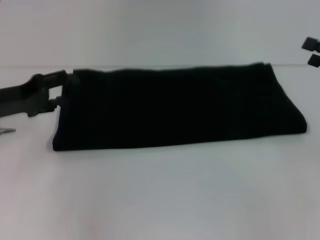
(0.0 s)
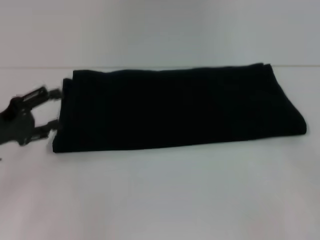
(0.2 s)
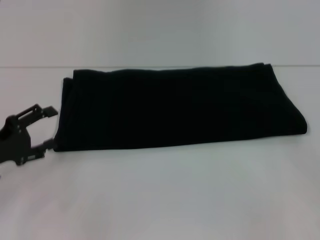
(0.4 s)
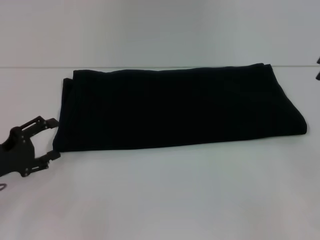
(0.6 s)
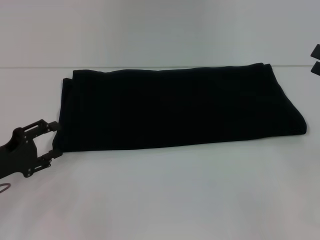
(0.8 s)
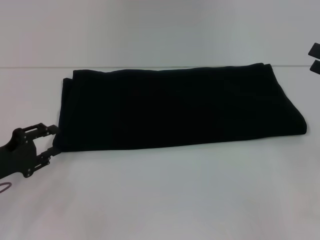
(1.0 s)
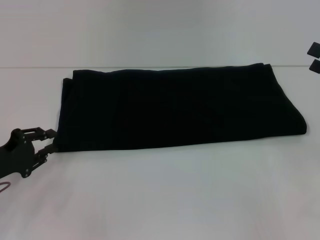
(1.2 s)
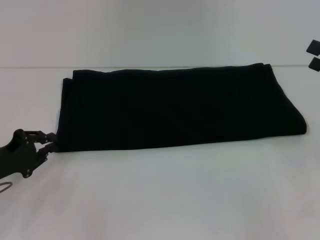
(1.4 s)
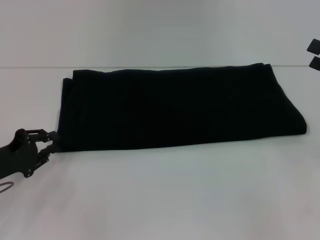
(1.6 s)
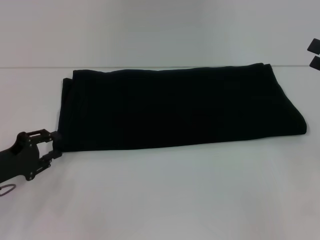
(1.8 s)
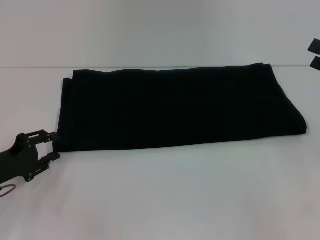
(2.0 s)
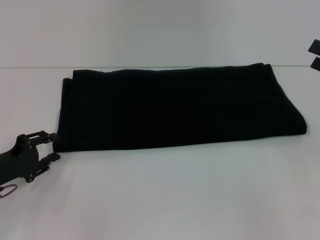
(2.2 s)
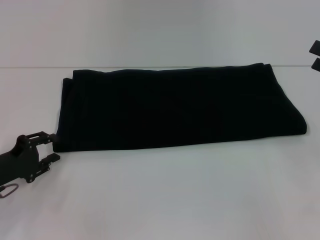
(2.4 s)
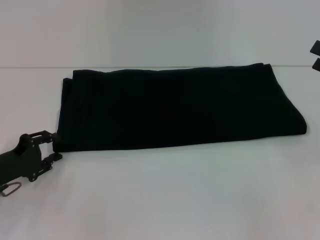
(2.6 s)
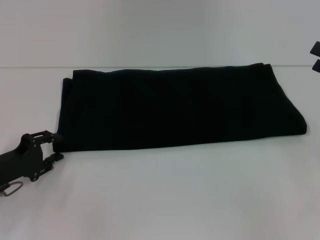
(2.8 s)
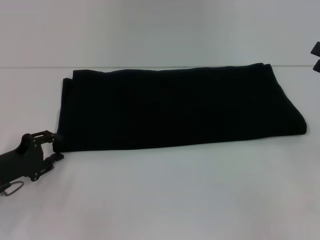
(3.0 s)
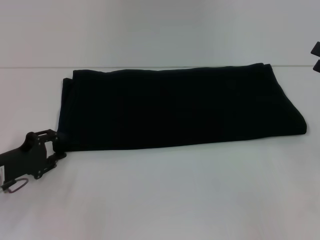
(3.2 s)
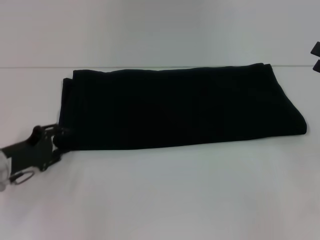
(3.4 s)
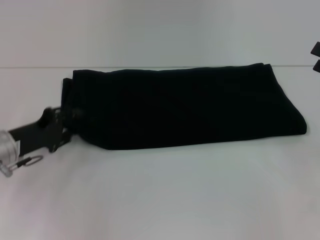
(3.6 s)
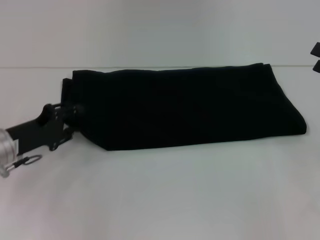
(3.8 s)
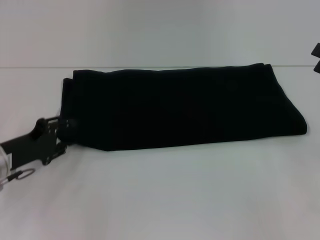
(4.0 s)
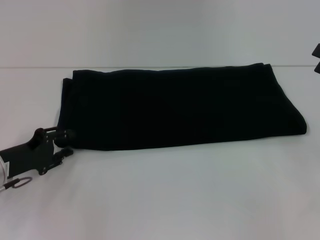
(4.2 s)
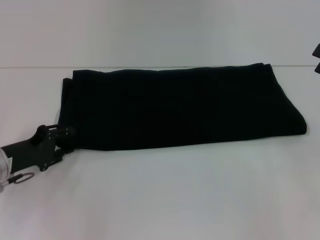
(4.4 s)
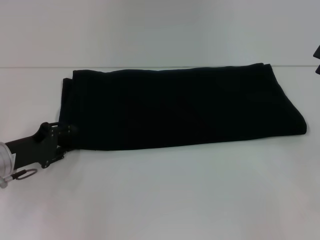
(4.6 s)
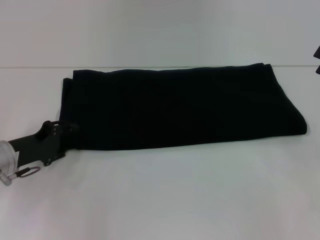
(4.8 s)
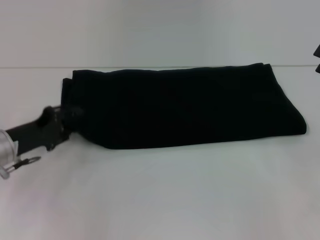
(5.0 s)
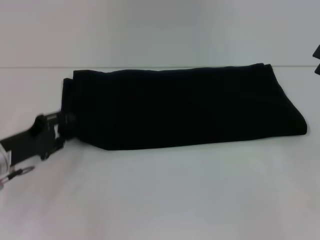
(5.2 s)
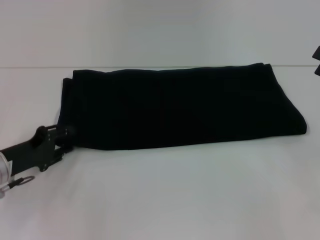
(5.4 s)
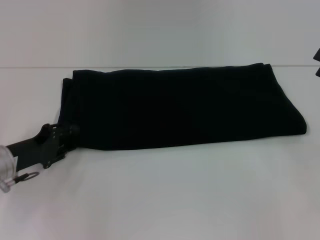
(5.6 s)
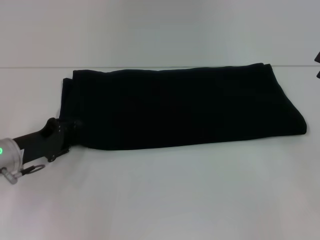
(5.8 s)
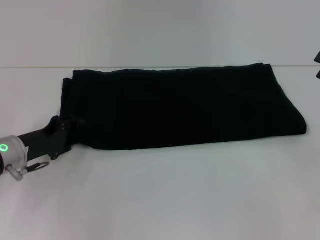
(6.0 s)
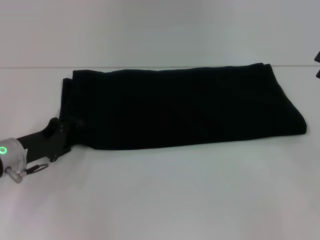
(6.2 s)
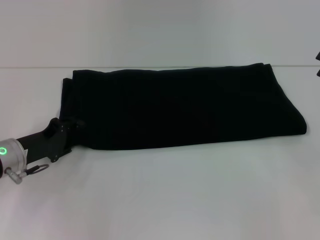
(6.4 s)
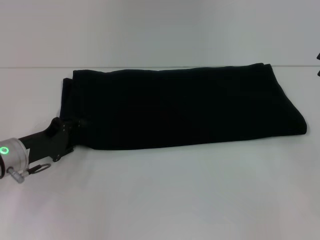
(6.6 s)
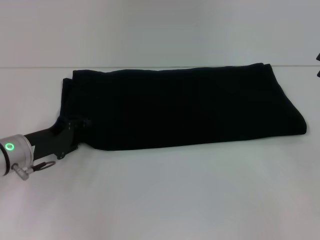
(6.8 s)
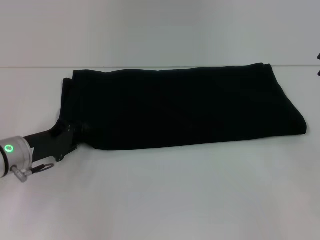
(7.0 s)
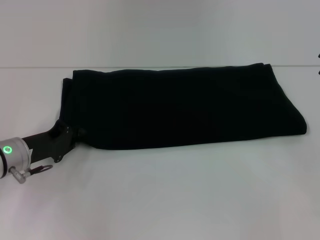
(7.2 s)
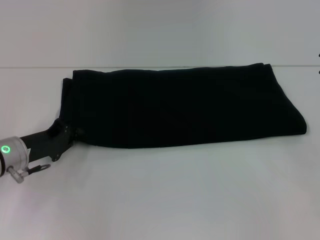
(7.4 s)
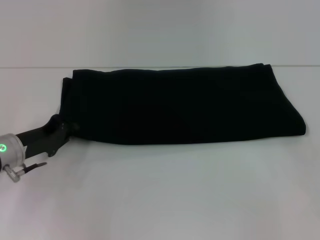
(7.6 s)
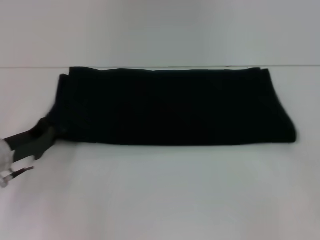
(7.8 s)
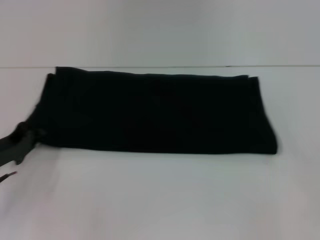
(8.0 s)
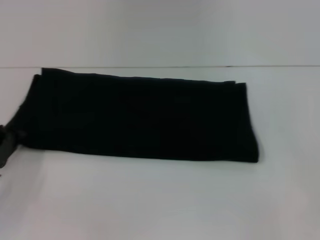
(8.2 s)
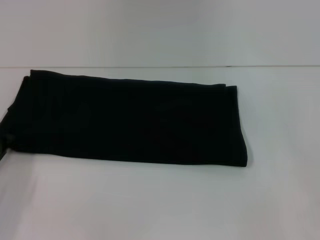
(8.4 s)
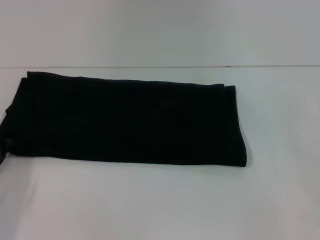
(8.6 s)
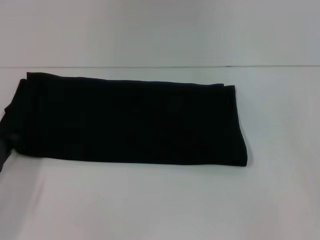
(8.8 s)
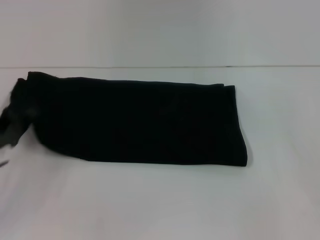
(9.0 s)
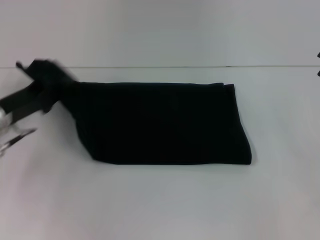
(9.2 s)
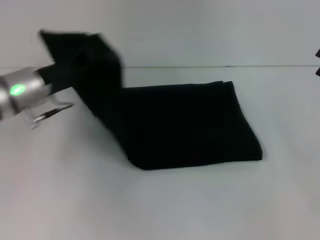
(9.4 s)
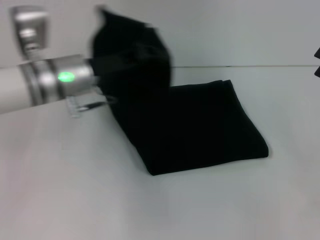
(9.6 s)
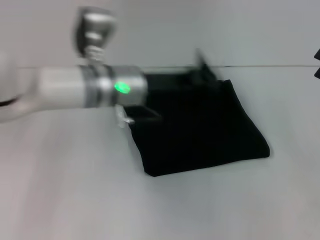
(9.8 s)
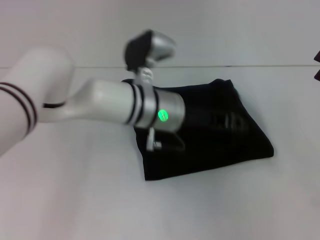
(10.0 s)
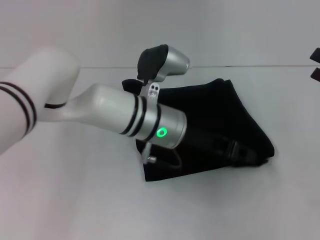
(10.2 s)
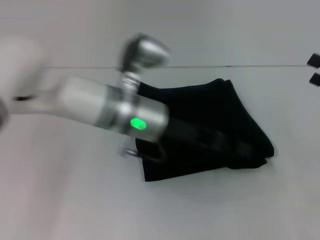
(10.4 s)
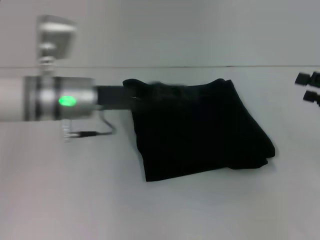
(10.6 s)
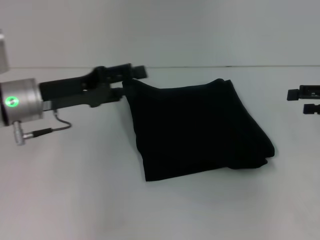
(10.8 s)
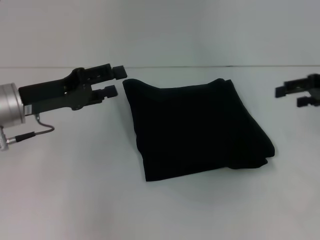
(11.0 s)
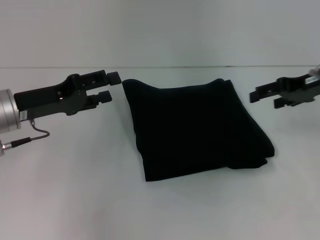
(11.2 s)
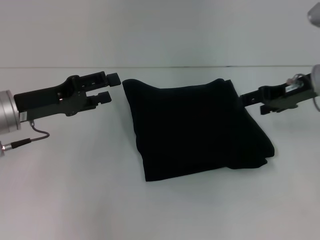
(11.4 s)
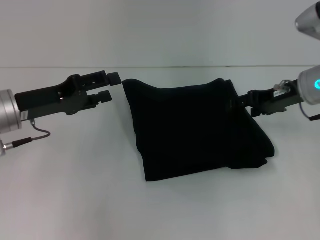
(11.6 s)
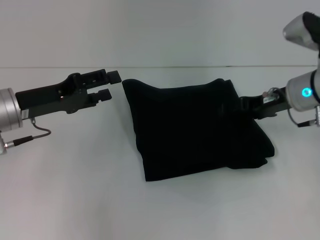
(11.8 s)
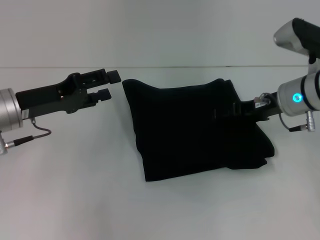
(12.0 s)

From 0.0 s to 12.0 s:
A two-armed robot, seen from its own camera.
Step, from 0.0 s to 10.2 s: Fold the clothes with your left hand.
From 0.0 s to 1.6 s: The left gripper travels downward and backward by about 10 cm, and closes.
From 1.6 s to 3.0 s: The grippers stay close to where they were, moving slightly.
From 3.0 s to 6.0 s: The grippers move only a little.
From 6.0 s to 7.6 s: The left gripper closes up.
From 7.6 s to 9.0 s: The left gripper moves to the left, roughly 5 cm.
From 9.0 s to 10.4 s: The left gripper goes some 25 cm to the right.
From 10.4 s to 12.0 s: The right gripper is displaced to the left and forward by some 20 cm. Meanwhile the left gripper moves to the left, some 20 cm, and opens up.

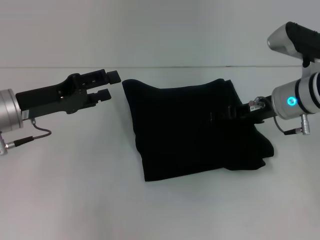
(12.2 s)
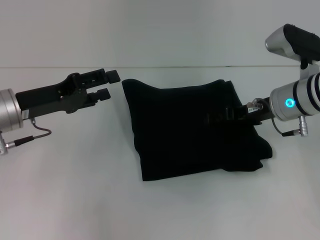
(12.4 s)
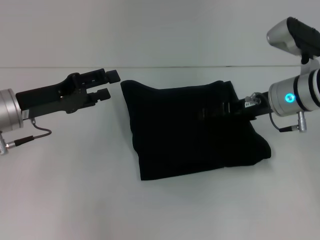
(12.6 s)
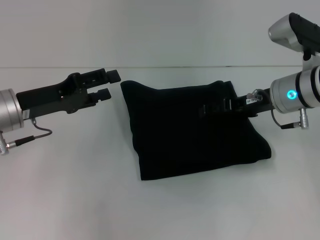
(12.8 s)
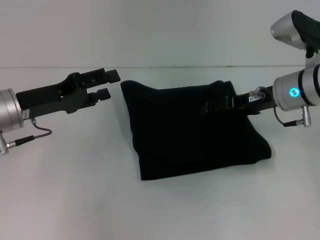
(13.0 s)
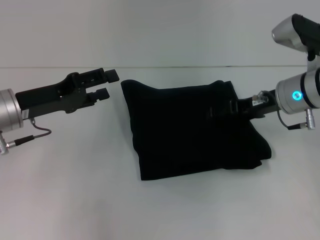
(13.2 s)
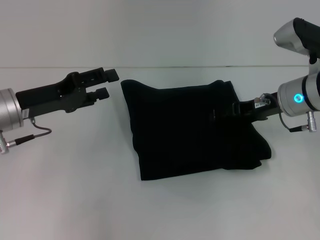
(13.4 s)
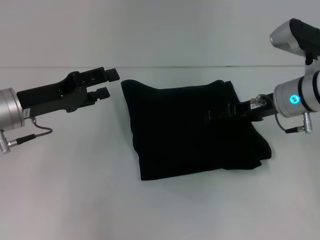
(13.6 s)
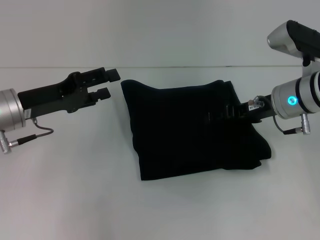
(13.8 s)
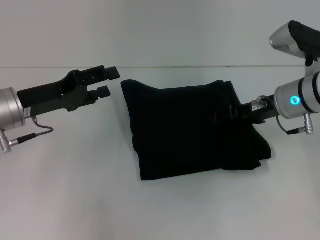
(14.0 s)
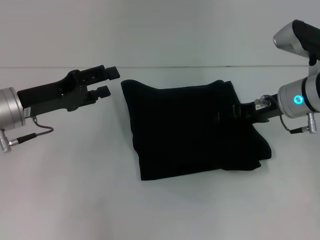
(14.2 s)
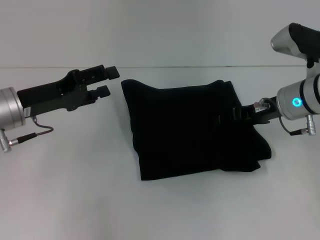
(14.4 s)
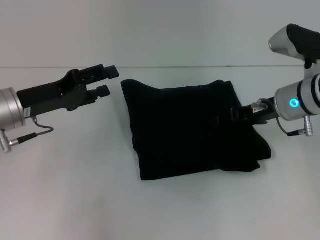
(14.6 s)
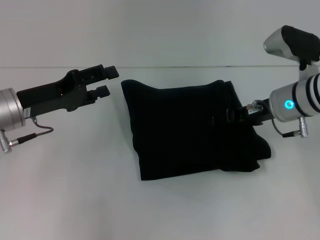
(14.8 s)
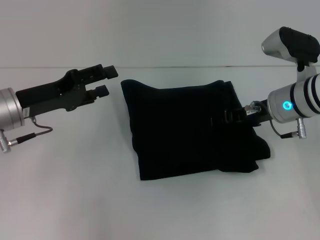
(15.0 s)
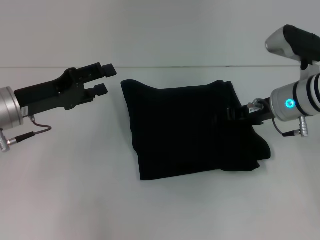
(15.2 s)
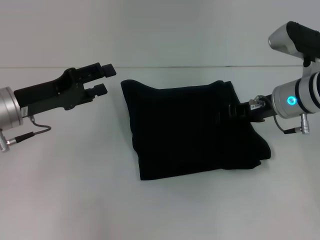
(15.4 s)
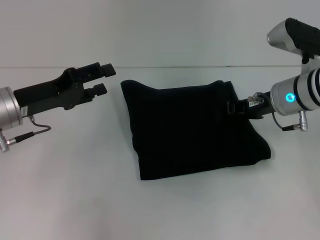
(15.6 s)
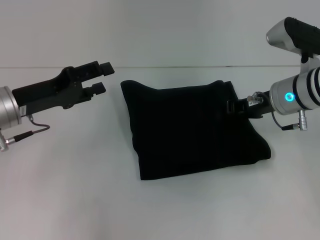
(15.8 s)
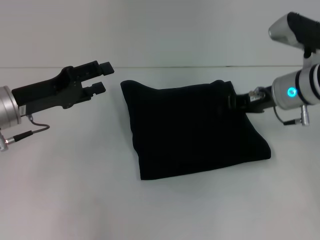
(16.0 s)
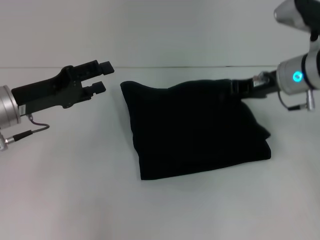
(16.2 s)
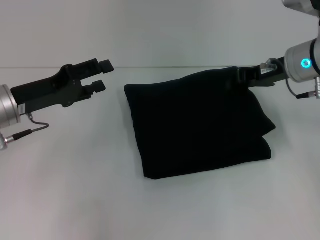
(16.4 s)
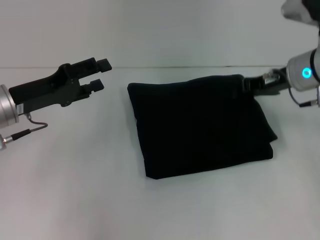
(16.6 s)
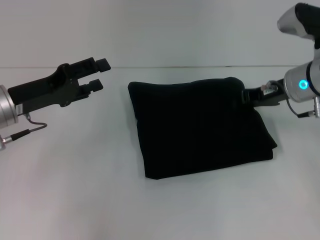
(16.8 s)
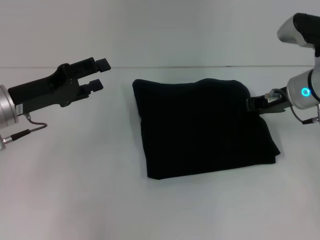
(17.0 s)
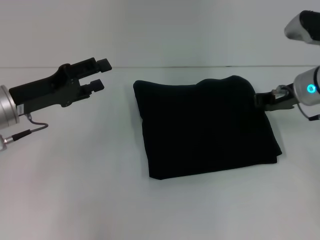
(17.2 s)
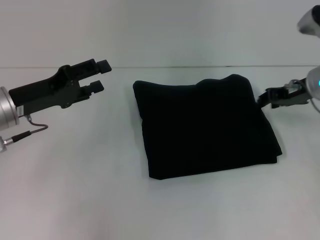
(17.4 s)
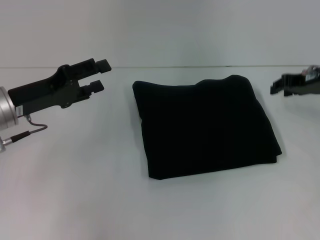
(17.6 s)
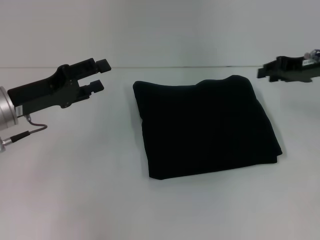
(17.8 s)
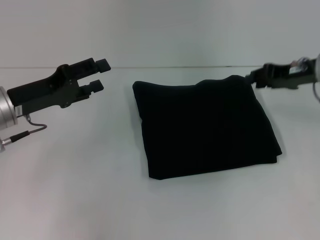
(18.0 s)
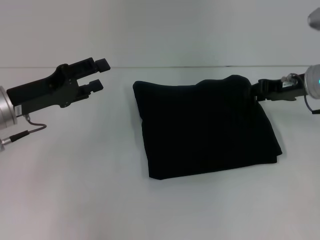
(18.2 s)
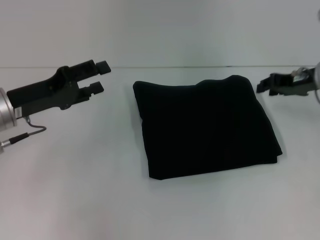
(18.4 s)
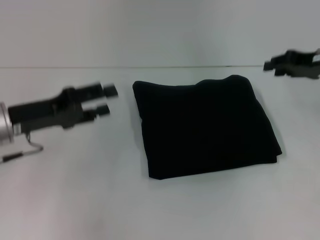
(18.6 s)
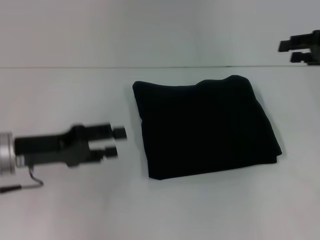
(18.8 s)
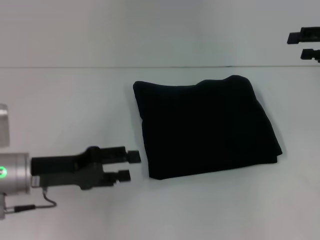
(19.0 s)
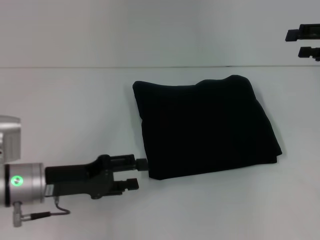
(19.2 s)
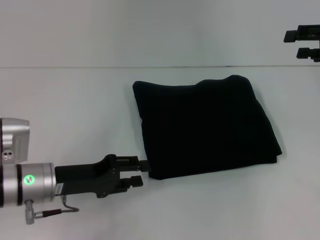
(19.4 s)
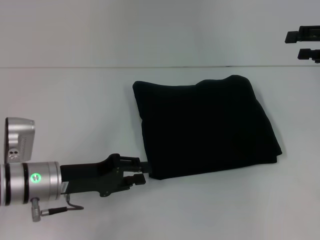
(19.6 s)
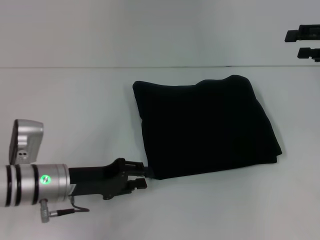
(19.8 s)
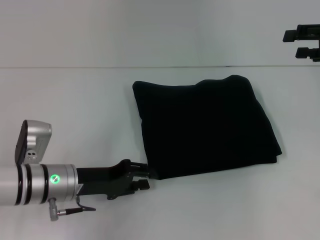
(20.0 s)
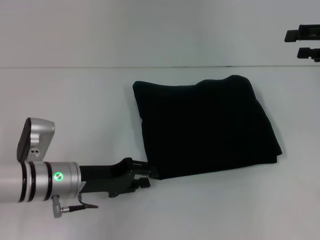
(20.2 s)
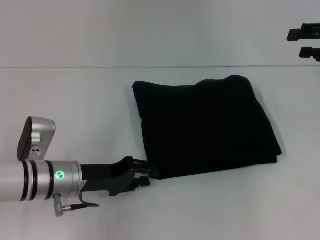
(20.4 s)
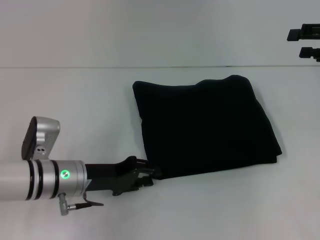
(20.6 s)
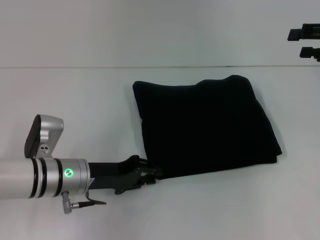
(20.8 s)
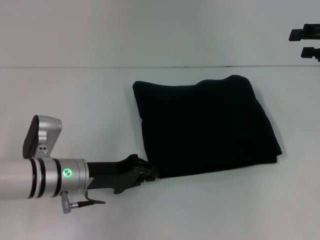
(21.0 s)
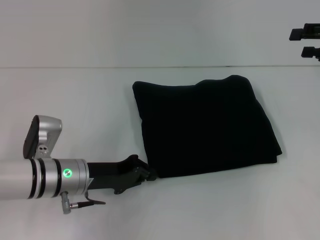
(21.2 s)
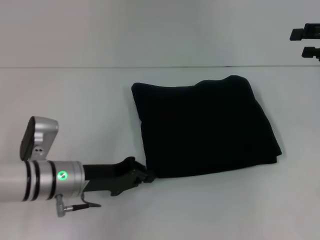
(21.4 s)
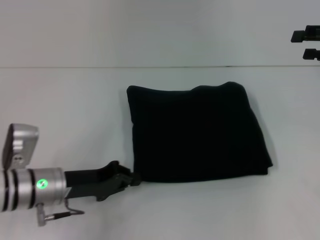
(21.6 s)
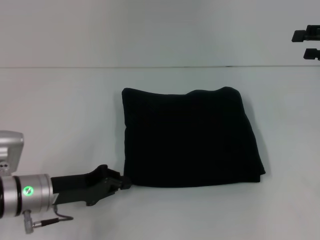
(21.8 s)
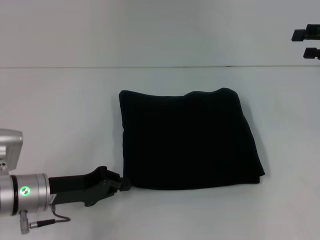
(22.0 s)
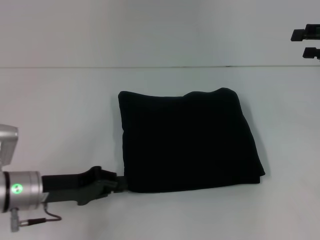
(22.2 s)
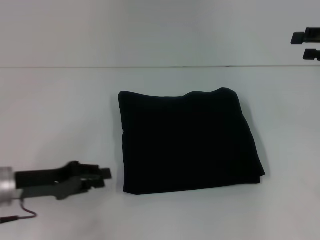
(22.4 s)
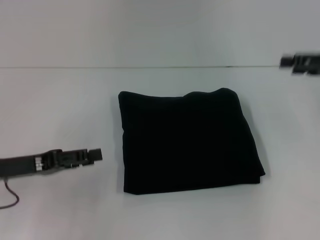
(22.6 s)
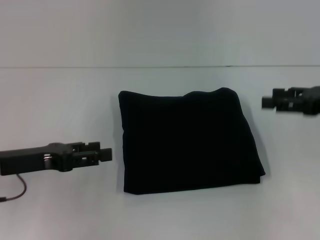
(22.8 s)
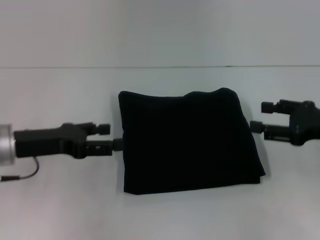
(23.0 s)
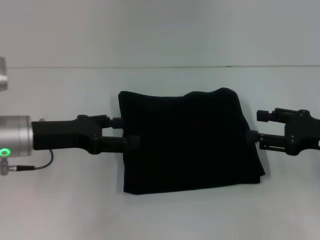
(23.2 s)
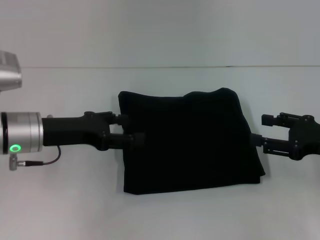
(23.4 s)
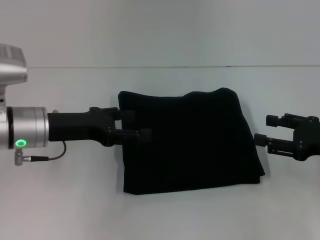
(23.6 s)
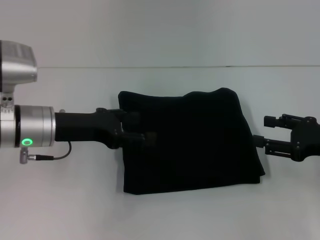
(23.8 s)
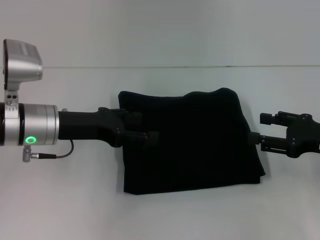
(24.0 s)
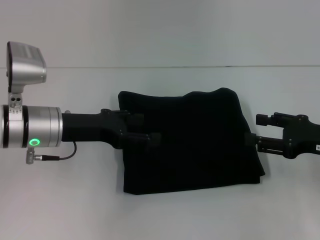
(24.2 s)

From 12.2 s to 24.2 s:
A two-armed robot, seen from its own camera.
From 12.2 s to 13.8 s: The grippers stay close to where they were, moving slightly.
From 13.8 s to 15.2 s: Both grippers stay put.
From 15.2 s to 16.6 s: The right gripper changes place by approximately 5 cm, and closes.
From 18.2 s to 19.8 s: The right gripper goes approximately 10 cm to the right and upward, and opens. Meanwhile the left gripper heads downward and to the right, covering approximately 10 cm, and closes its fingers.
From 19.8 s to 21.2 s: There are only small adjustments of the grippers.
From 21.2 s to 22.6 s: The left gripper heads to the left and upward, covering about 10 cm.
From 22.6 s to 24.2 s: The left gripper shifts about 10 cm to the right and forward, and opens. The right gripper travels downward and backward by about 10 cm.
